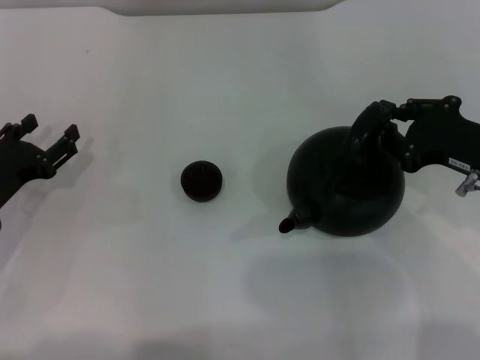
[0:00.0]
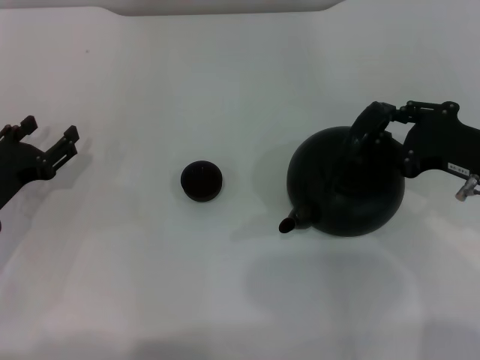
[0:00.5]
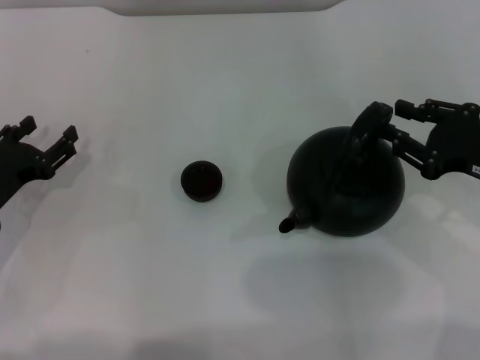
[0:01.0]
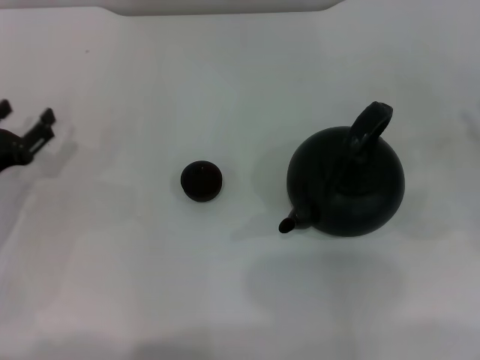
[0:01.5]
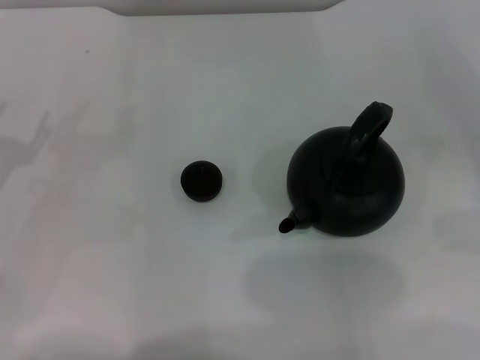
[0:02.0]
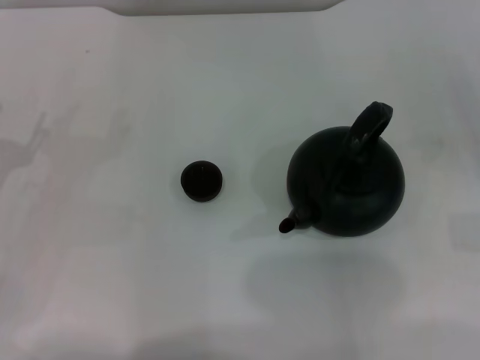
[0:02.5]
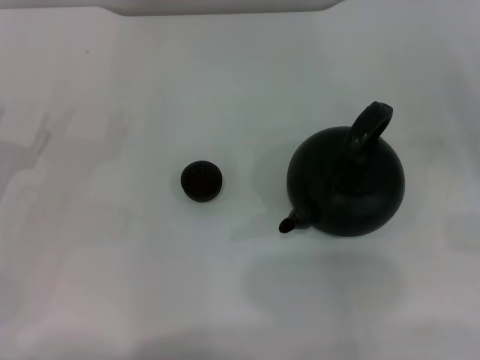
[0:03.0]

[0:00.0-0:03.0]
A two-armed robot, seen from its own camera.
Task of the whole recording: Grasp the handle of the teapot with one hand and pour tea into the teacup.
0:00.0 to 0:01.5: The right gripper heads to the right, covering roughly 10 cm.
